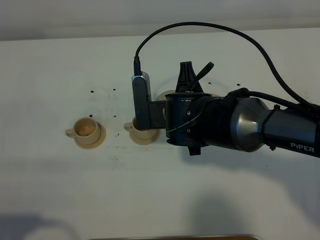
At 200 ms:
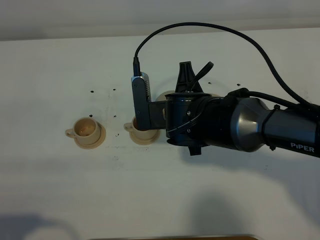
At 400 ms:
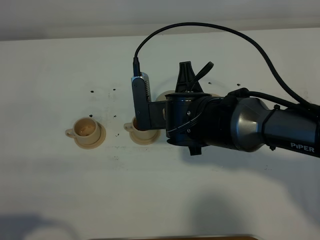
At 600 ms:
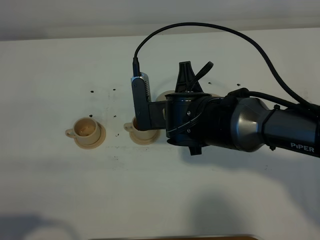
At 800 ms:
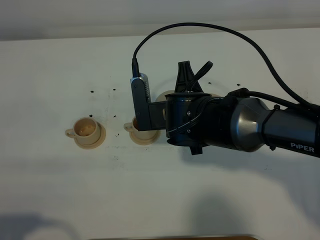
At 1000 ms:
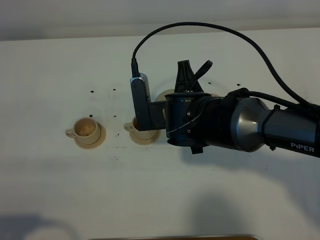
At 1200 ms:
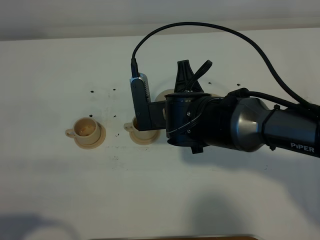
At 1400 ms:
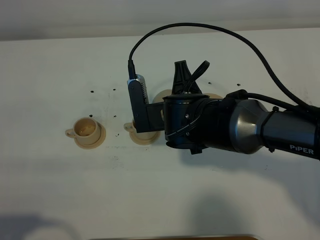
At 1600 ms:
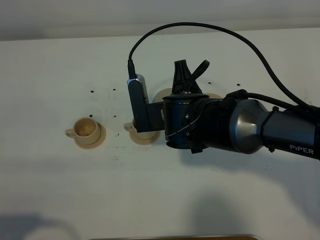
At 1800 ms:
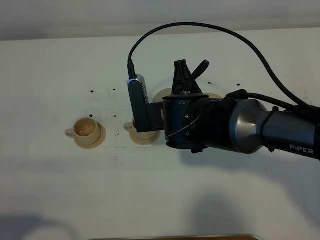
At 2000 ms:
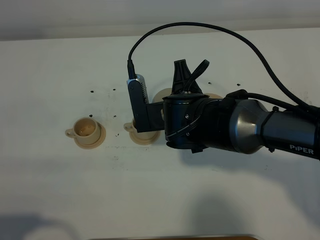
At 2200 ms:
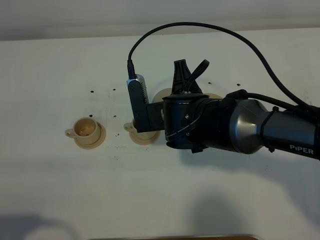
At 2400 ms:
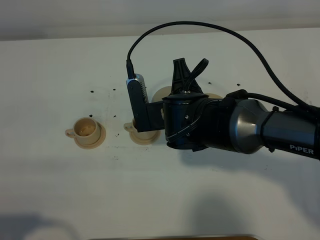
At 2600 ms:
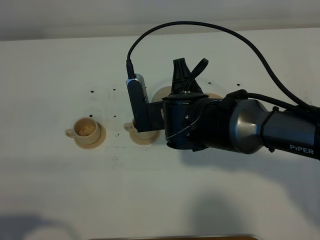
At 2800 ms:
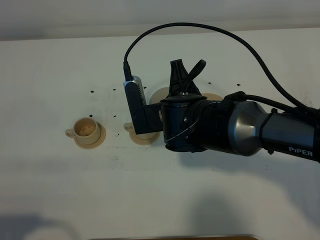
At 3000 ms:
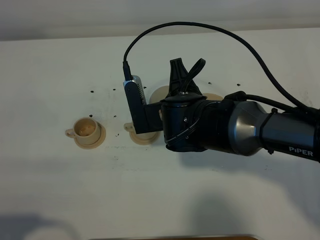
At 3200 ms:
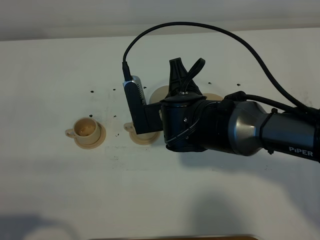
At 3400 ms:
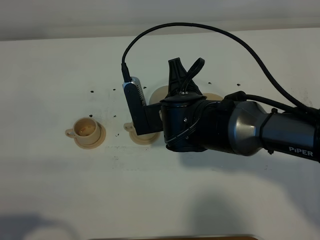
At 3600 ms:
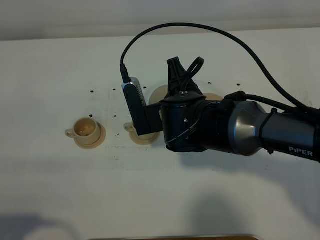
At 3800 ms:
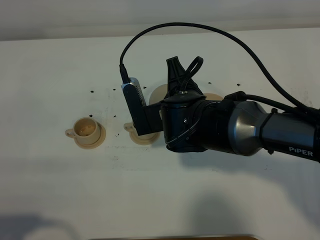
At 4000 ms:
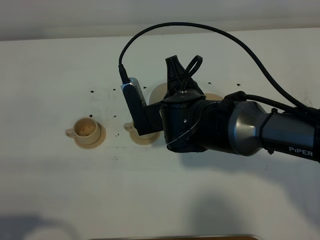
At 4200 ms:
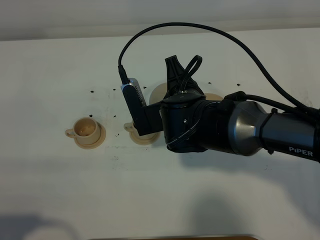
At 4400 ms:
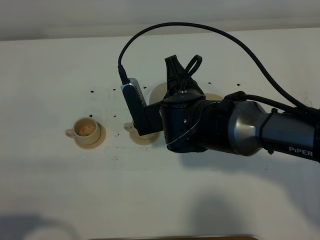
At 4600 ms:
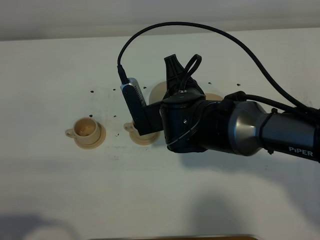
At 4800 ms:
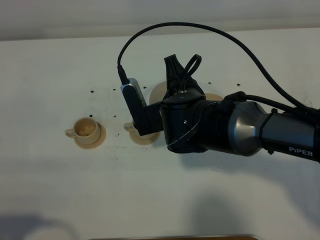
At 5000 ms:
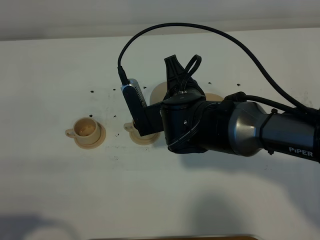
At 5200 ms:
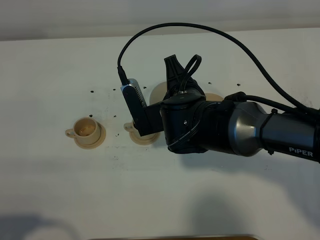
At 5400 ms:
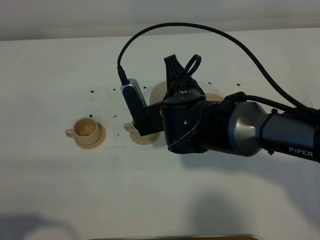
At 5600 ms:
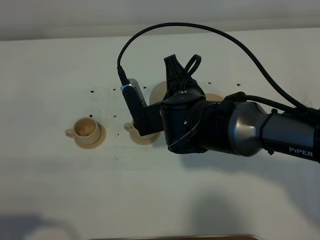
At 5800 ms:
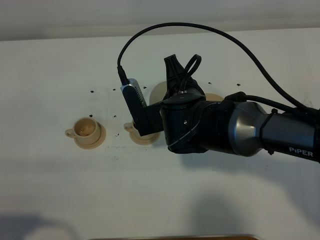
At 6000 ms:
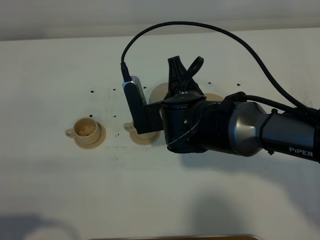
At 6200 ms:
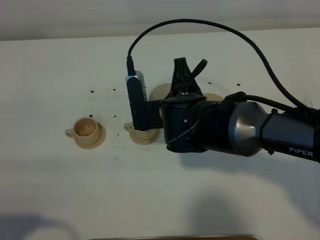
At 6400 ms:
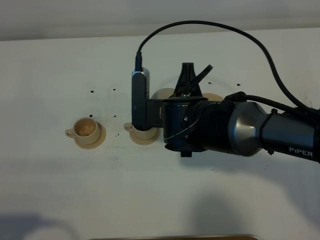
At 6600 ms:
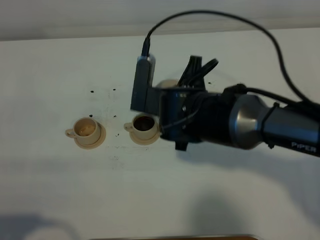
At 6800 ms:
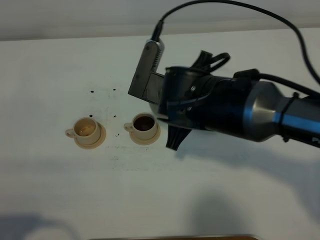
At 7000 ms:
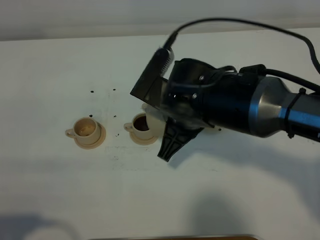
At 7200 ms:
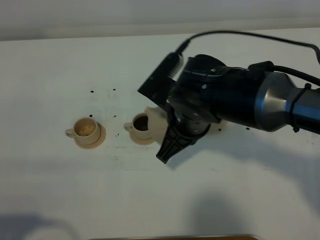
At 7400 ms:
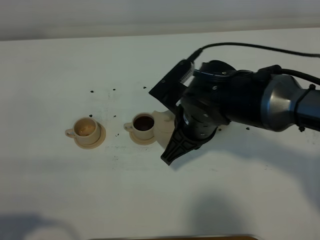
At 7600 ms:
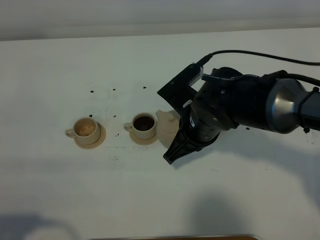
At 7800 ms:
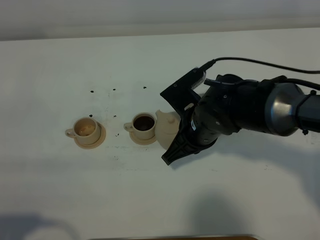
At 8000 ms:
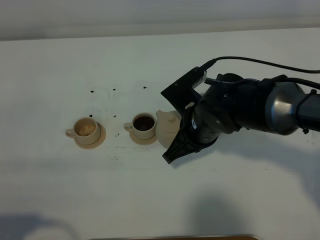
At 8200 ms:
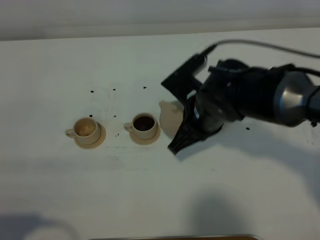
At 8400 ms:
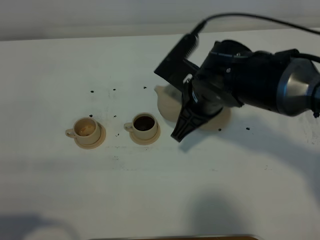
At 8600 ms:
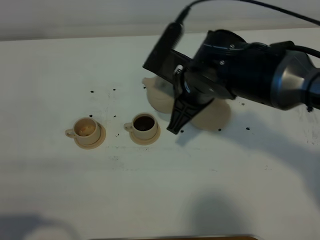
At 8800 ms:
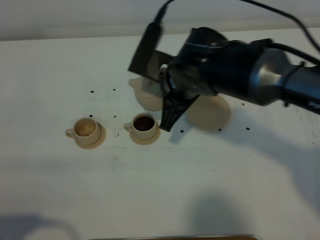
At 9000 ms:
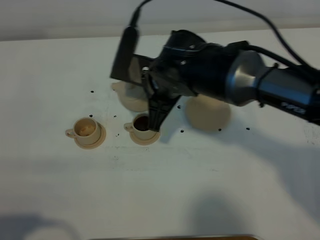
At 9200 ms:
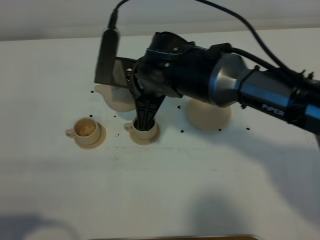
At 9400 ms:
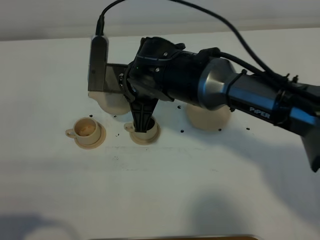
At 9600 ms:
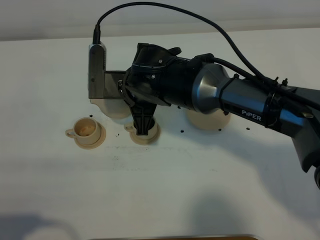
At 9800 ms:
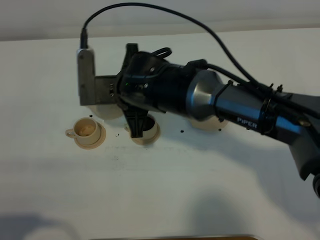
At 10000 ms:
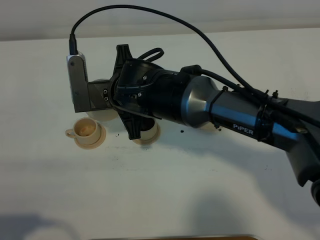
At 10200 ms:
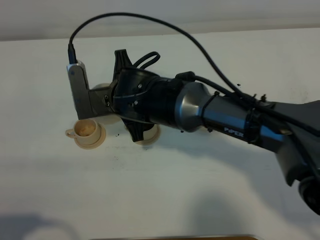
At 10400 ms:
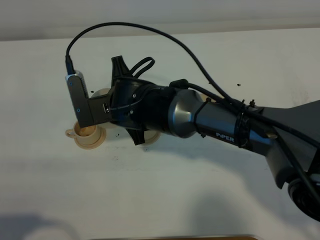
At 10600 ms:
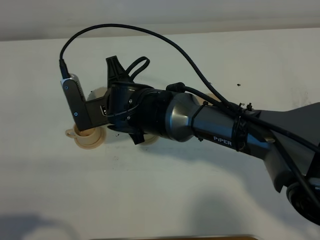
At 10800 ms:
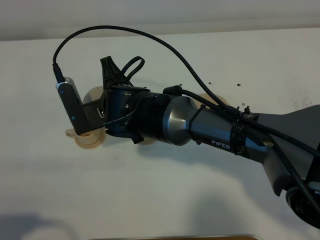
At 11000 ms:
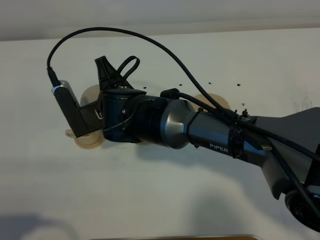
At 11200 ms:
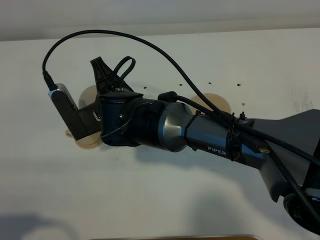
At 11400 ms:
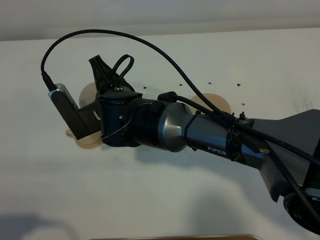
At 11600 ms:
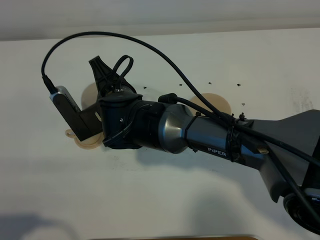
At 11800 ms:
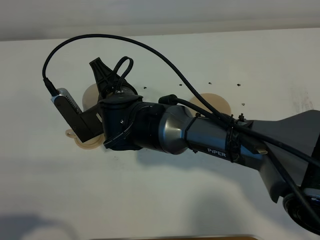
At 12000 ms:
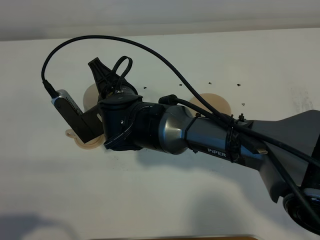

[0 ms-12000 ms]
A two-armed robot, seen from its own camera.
Task of the whole recording: grasp the brown teapot and pour the tea into the two brown teacups one by one, put the brown teapot back in its original place.
Step, 0 ms to 6600 ms: Pour tea into the teacup with the right gripper.
0 ms to 1600 ms: Neither gripper changes place.
1600 ms to 3000 ms: Both grippers stay about where they are.
3000 ms to 6000 ms: The grippers stay close to where they were, moving slightly.
7600 ms to 9000 ms: The right gripper goes roughly 5 cm to the left.
9000 ms to 10400 ms: The right gripper shifts approximately 5 cm to the left.

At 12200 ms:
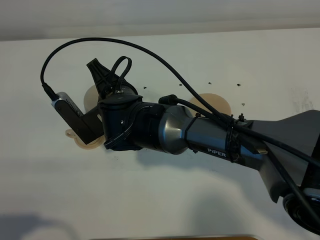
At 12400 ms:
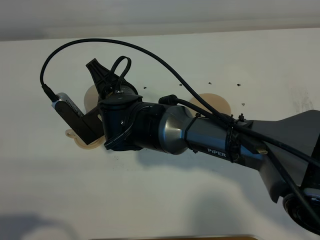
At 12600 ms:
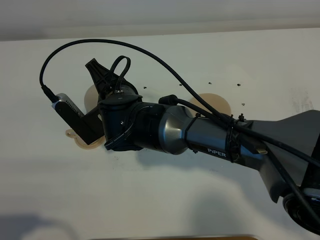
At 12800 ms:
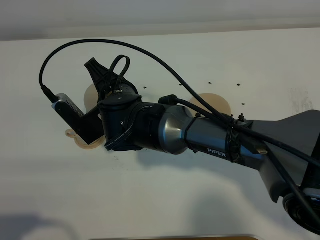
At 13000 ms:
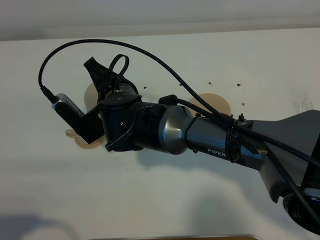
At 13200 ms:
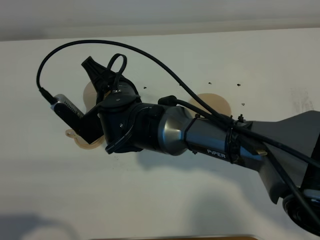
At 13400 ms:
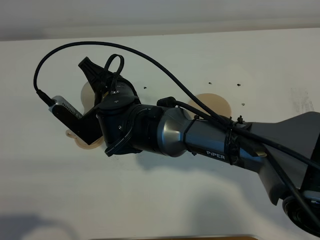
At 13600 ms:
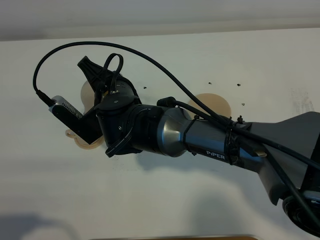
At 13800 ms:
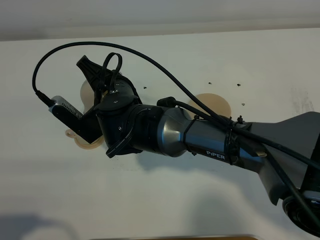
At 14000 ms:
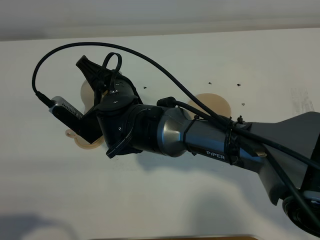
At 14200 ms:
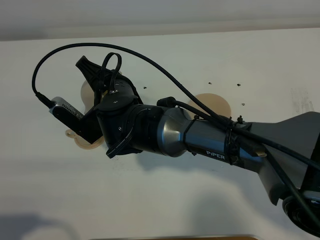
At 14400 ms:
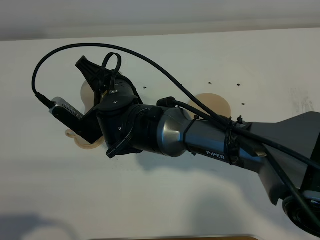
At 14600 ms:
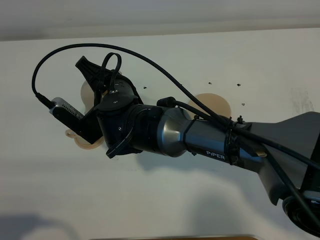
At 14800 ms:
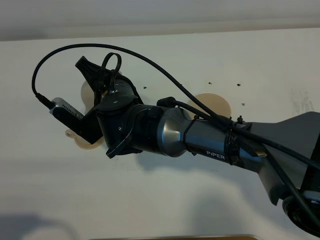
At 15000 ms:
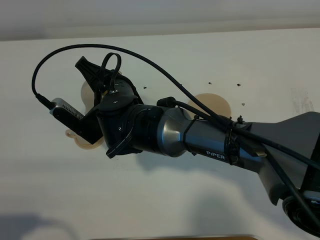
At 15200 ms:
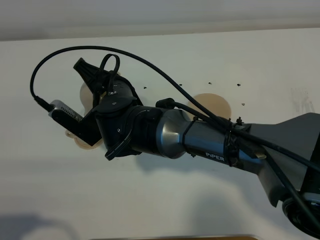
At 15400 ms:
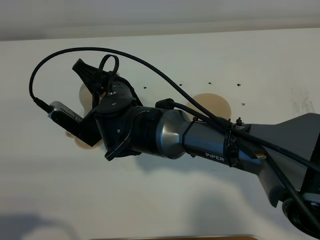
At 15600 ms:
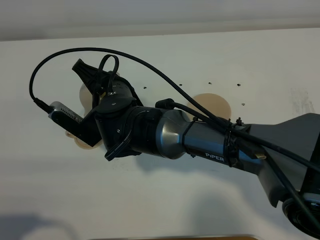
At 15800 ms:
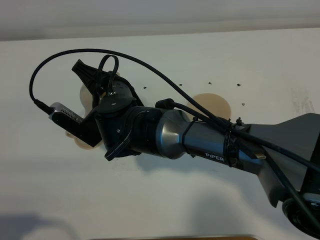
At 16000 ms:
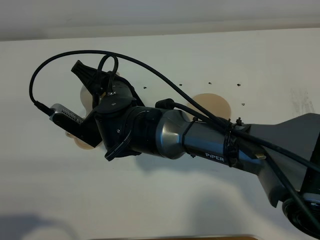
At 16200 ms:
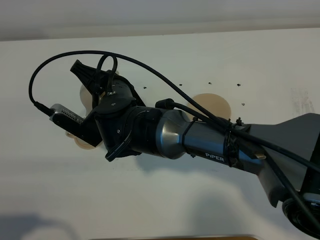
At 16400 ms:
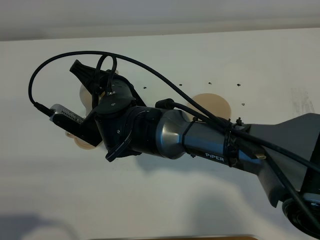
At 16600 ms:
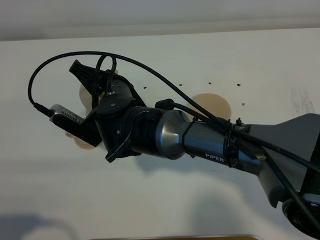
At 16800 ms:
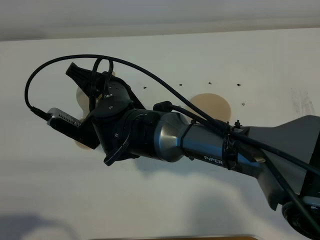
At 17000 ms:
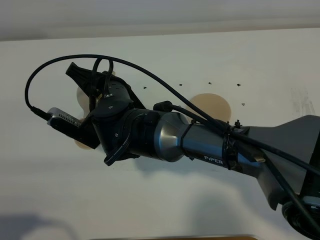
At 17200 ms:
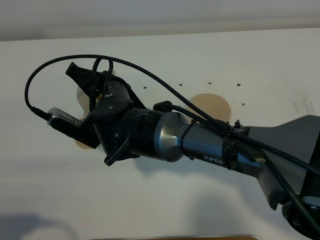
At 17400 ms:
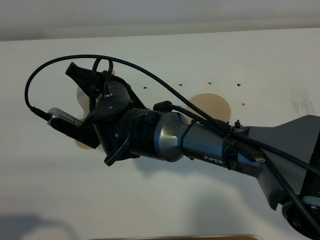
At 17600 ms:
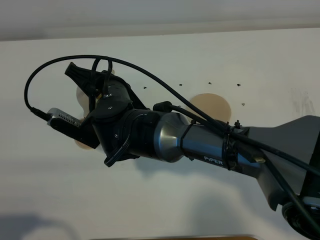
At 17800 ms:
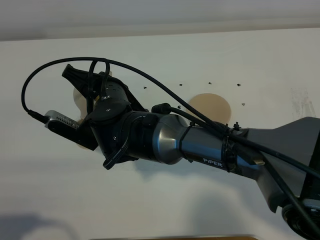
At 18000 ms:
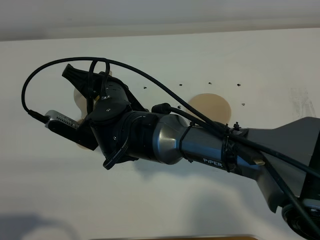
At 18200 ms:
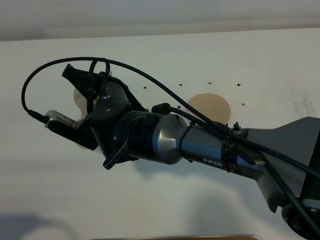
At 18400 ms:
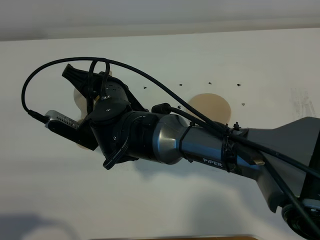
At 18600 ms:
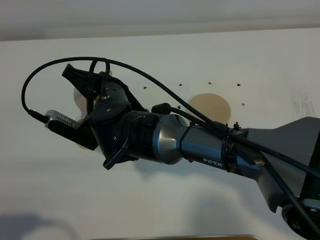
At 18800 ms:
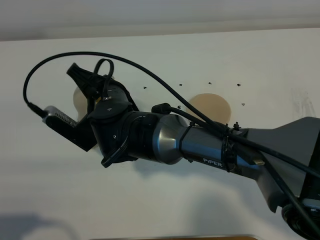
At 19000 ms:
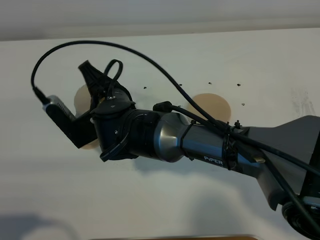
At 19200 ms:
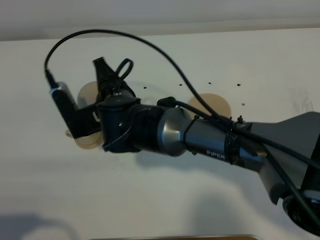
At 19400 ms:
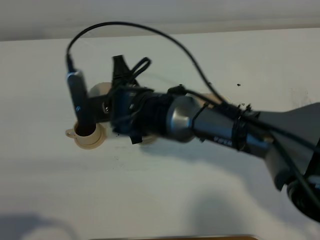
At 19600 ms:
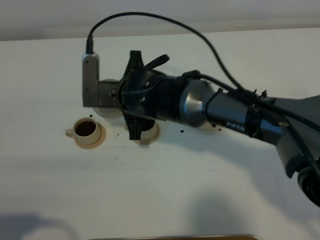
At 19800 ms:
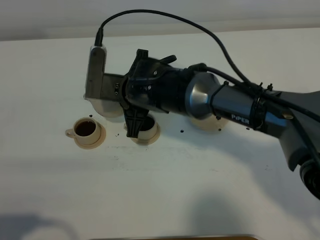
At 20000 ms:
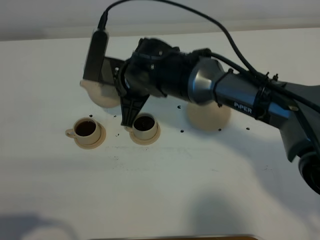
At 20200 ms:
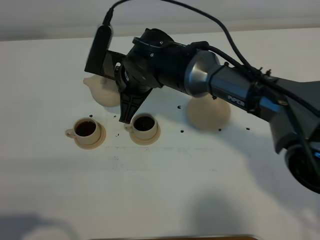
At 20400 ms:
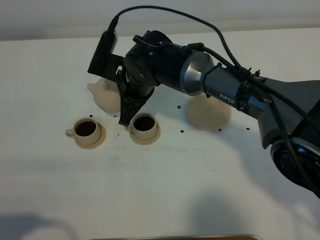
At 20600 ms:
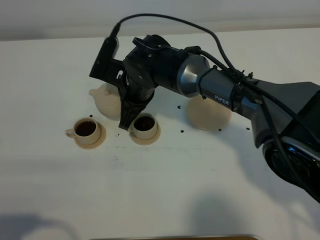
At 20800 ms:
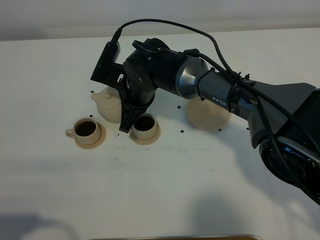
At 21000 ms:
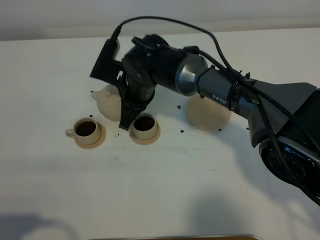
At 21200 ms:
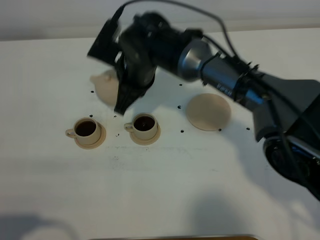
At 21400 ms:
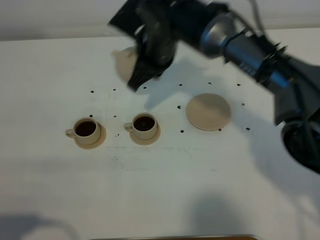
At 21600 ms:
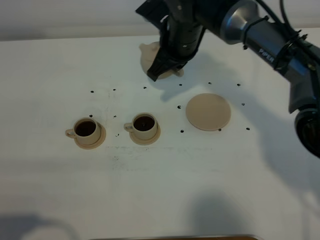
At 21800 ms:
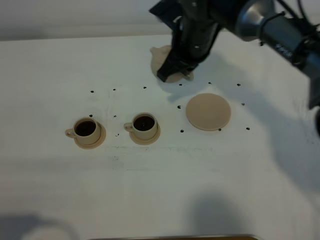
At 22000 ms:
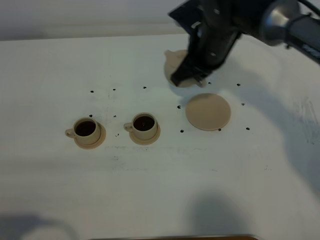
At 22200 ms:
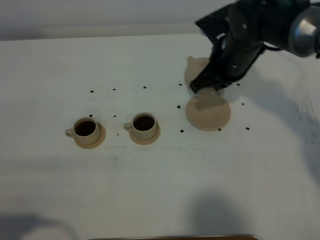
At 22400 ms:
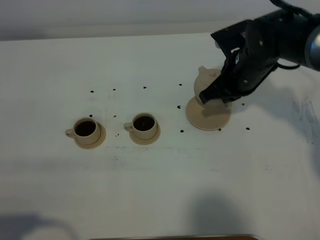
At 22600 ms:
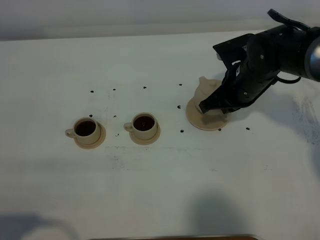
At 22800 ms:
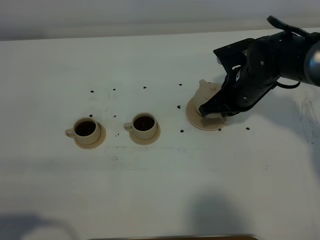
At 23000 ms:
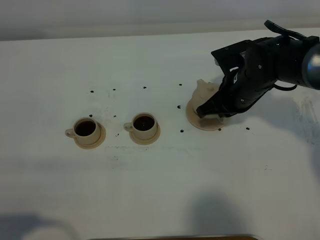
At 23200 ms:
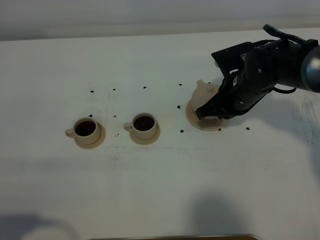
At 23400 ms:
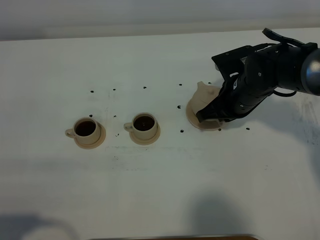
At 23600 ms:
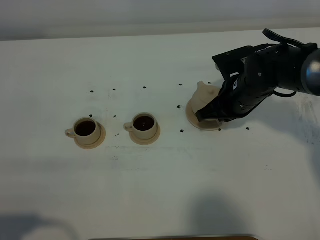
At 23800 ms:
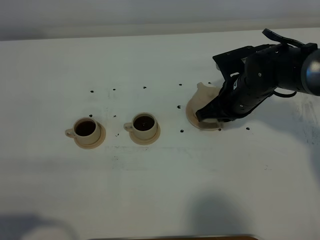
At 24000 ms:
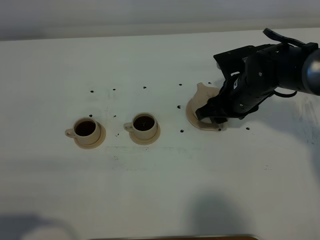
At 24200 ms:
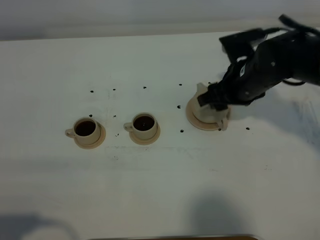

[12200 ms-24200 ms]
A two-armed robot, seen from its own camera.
Task of the whole recording: grasp the brown teapot and pour the tea into the two brown teacups one by one, put the brown teapot back in its original place.
Step, 12200 ms to 19400 ms: Pour tea into the teacup with the right gripper.
12200 ms to 13800 ms: The grippers move only a little.
13800 ms to 15200 ms: Neither gripper changes place.
15200 ms to 16600 ms: The grippers stay close to where they were, moving slightly.
16600 ms to 18200 ms: Neither gripper changes place.
18200 ms to 19800 ms: The right gripper moves approximately 5 cm.
19800 ms to 21200 ms: The right gripper moves forward, some 5 cm.
21200 ms to 22600 ms: The right gripper is displaced to the right by some 20 cm.
22600 ms to 24200 ms: The right gripper opens.
